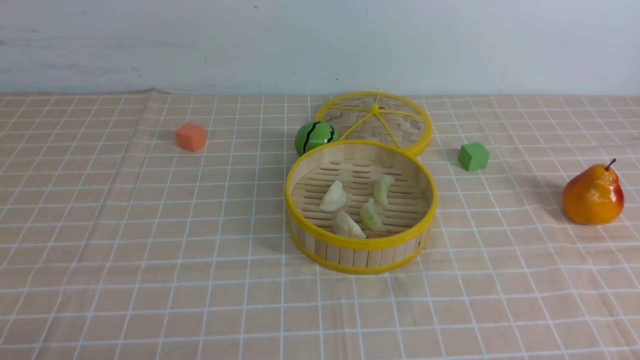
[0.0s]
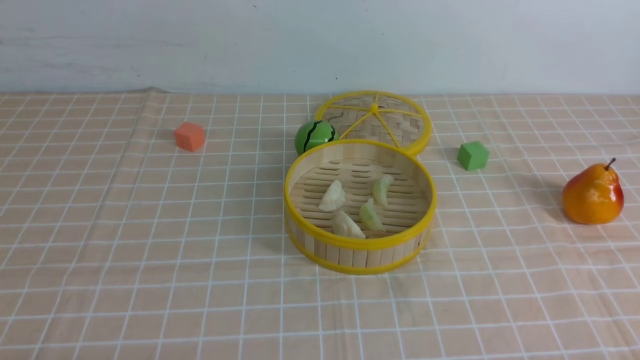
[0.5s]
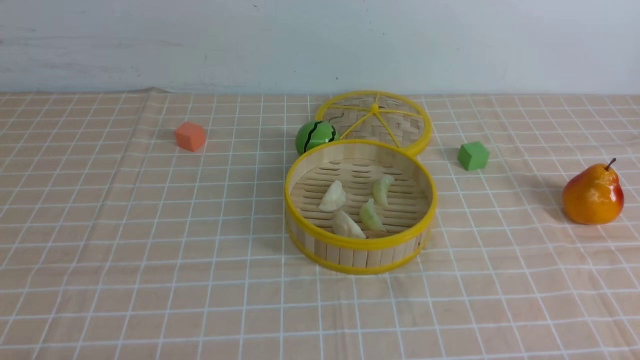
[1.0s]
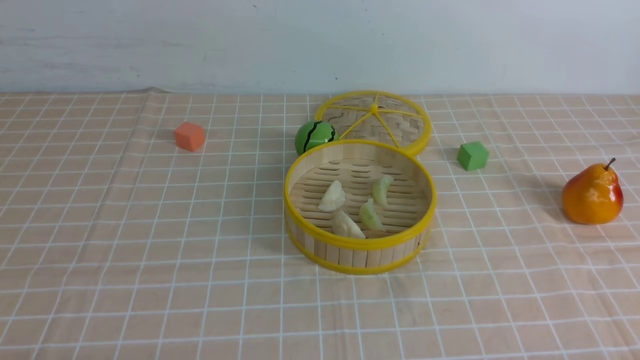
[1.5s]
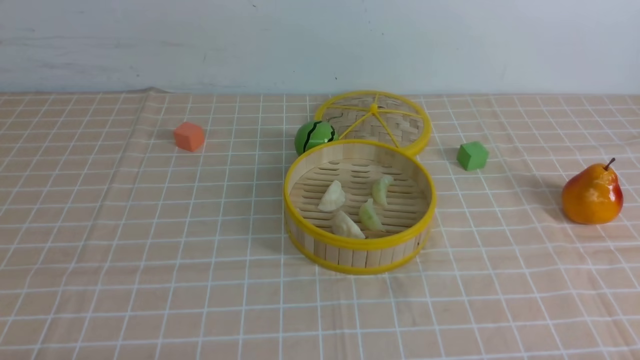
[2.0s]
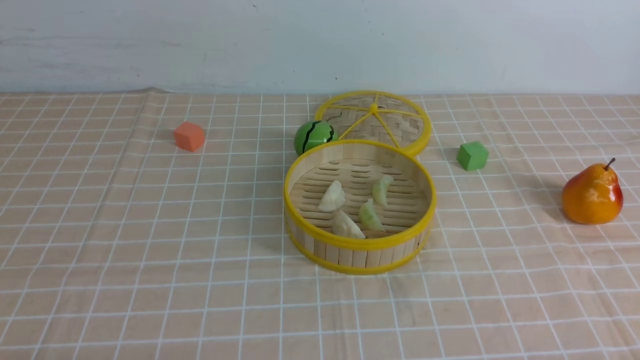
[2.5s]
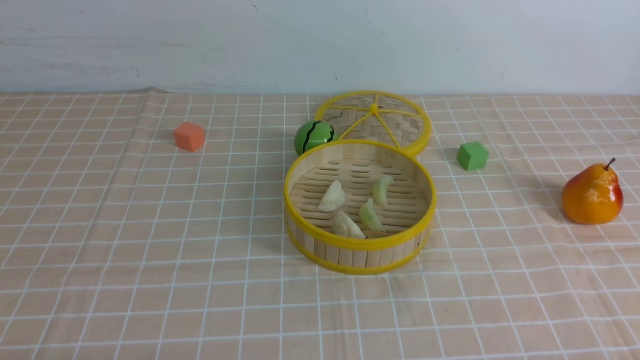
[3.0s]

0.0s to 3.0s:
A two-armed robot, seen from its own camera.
Task of the whole recording: put the dumplings into the steamer on the table with the brown tablecloth.
1.5s to 3.0s: Both grippers stay put.
